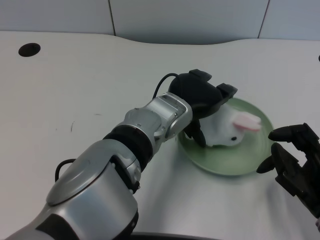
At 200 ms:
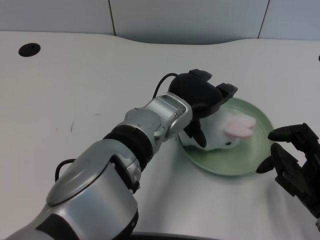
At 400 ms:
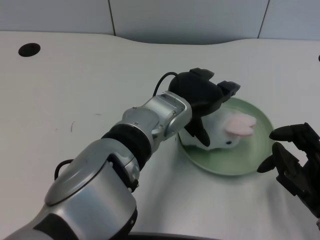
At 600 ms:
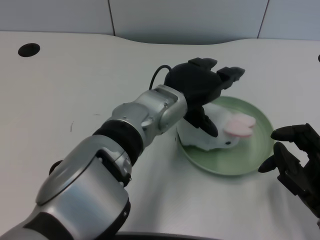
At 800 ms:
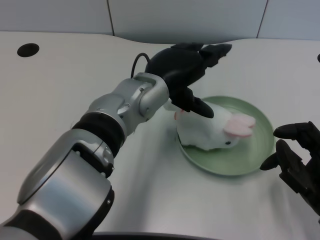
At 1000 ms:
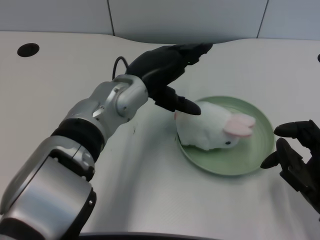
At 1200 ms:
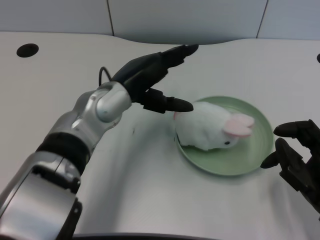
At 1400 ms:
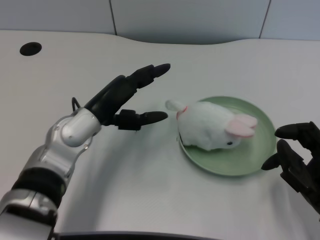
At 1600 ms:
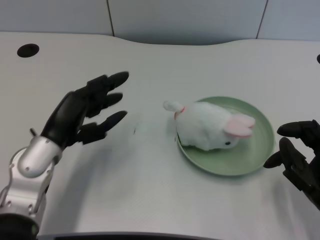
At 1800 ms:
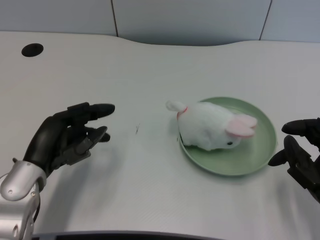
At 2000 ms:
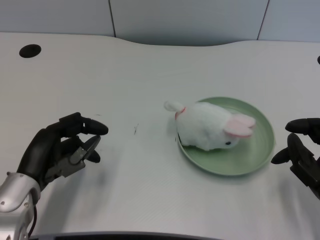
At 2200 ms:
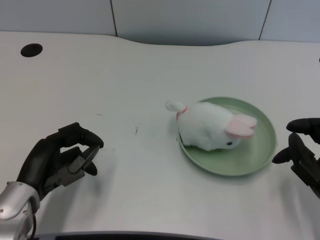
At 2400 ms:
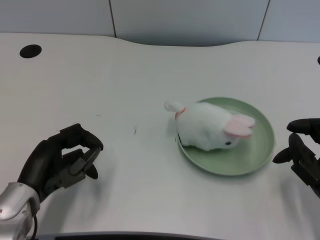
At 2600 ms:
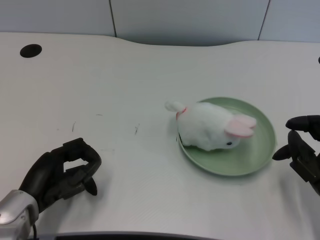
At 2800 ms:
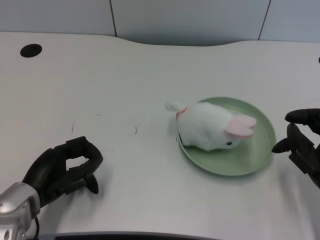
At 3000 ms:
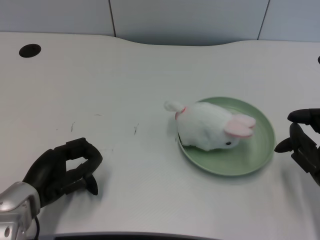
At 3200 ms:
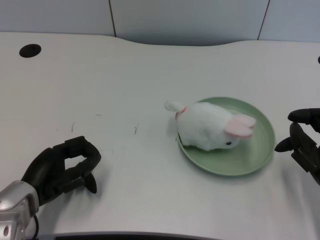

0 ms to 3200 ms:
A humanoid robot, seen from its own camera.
Task of the whole recording: pick up the rabbit doll from the table and place it on the plate.
0 ms to 1600 ms: The left hand heads to the left, covering approximately 20 cm.
1600 ms to 3200 ms: The left hand changes place by roughly 5 cm.

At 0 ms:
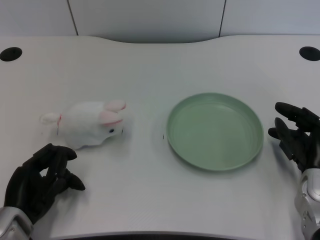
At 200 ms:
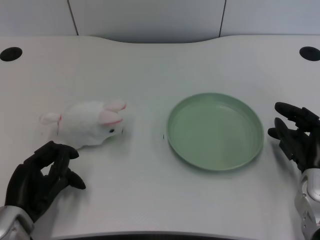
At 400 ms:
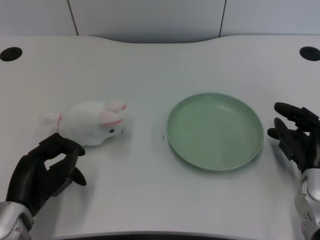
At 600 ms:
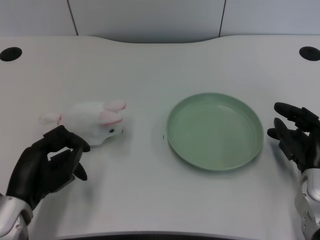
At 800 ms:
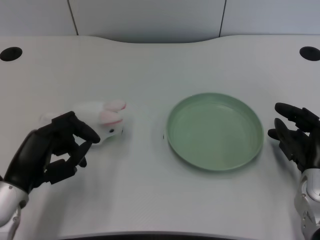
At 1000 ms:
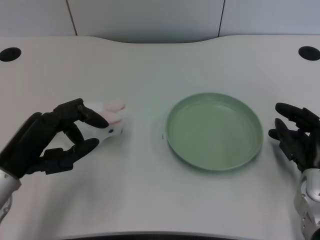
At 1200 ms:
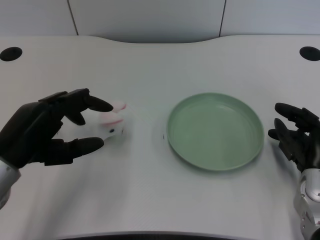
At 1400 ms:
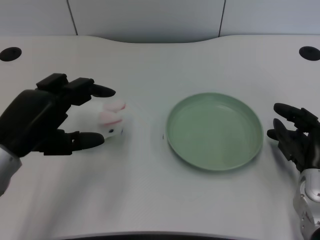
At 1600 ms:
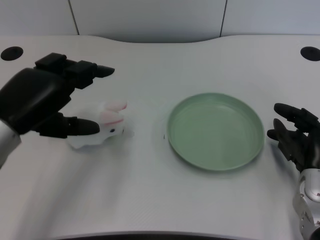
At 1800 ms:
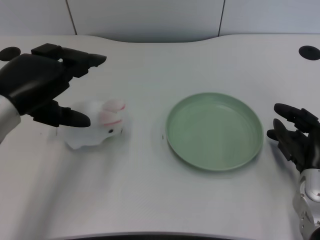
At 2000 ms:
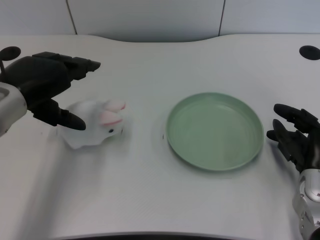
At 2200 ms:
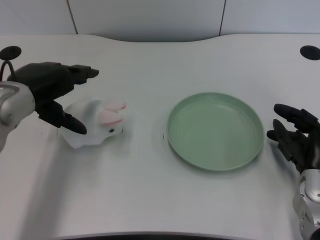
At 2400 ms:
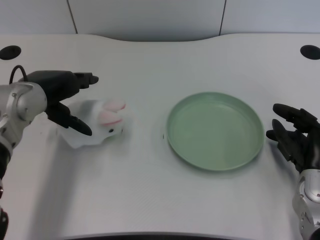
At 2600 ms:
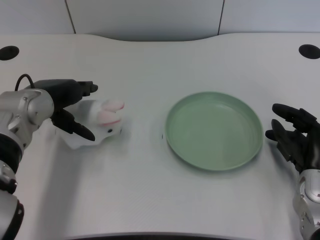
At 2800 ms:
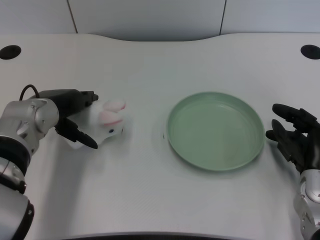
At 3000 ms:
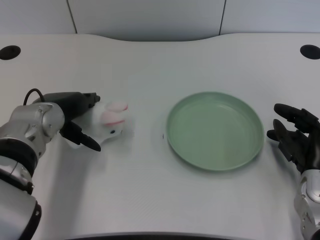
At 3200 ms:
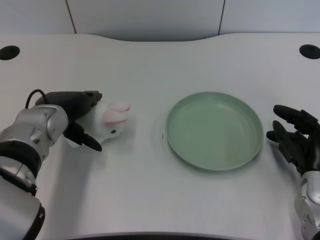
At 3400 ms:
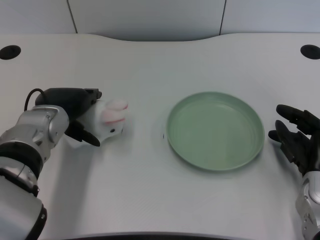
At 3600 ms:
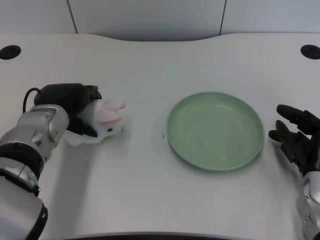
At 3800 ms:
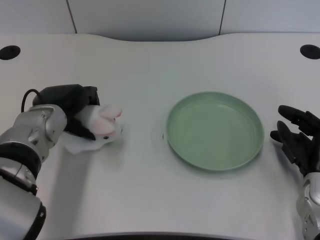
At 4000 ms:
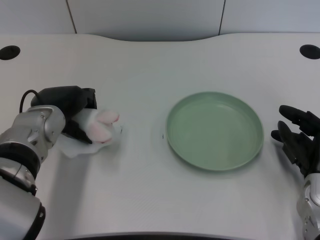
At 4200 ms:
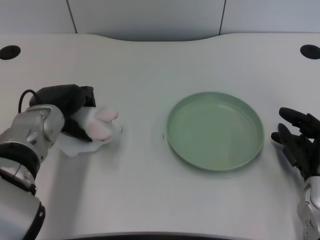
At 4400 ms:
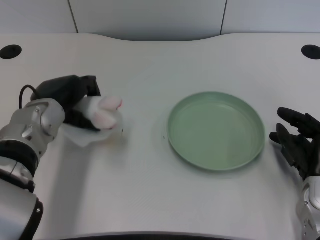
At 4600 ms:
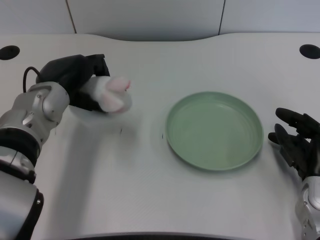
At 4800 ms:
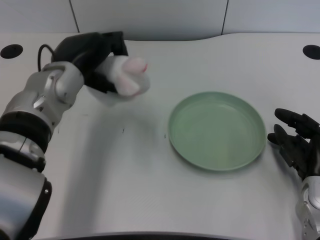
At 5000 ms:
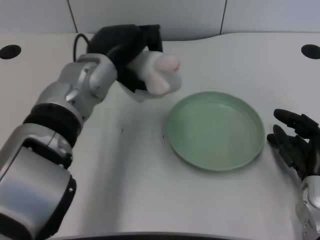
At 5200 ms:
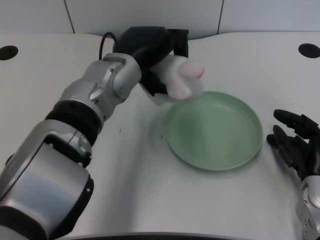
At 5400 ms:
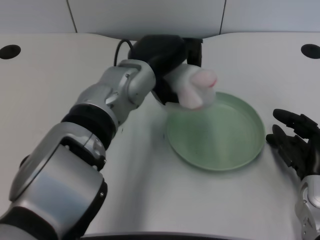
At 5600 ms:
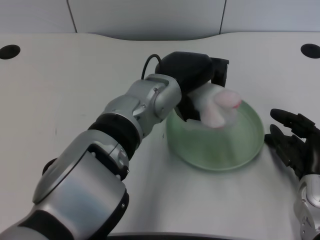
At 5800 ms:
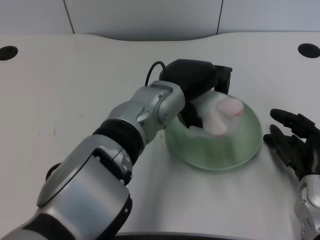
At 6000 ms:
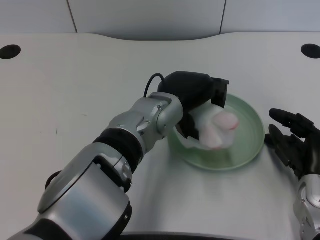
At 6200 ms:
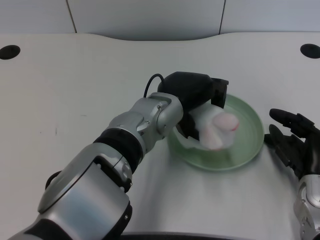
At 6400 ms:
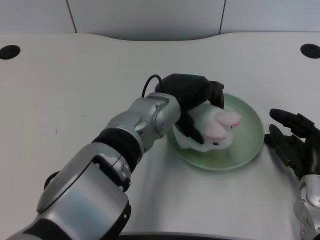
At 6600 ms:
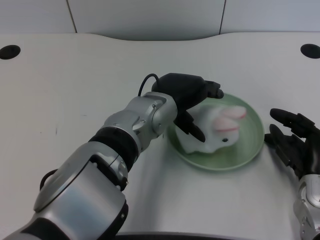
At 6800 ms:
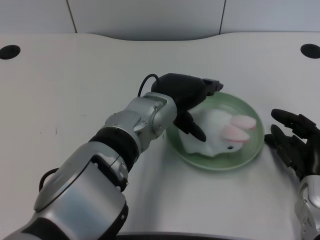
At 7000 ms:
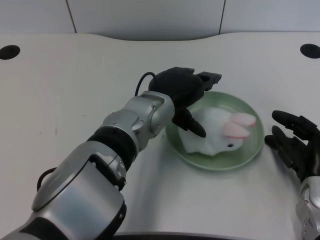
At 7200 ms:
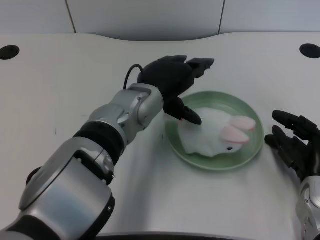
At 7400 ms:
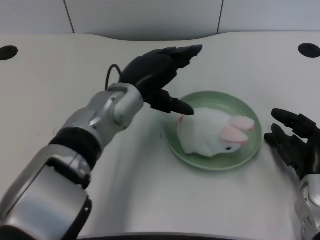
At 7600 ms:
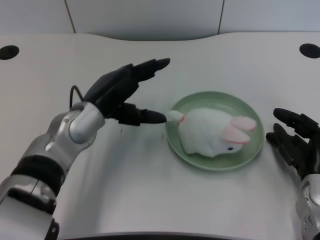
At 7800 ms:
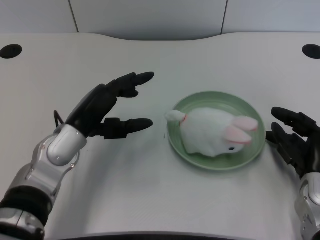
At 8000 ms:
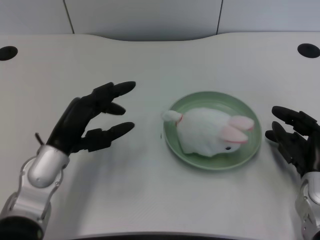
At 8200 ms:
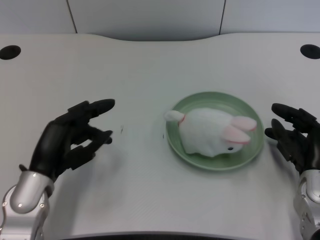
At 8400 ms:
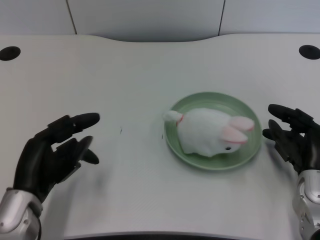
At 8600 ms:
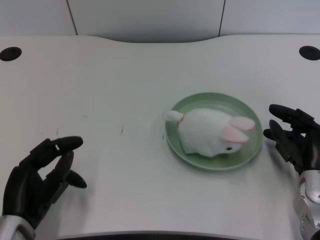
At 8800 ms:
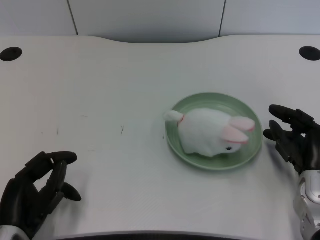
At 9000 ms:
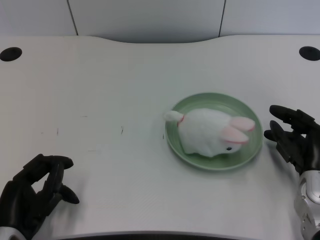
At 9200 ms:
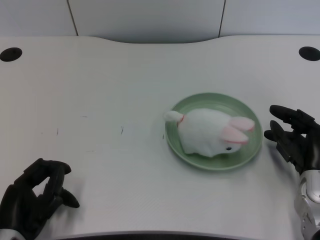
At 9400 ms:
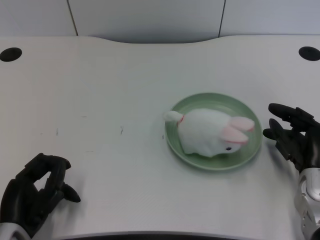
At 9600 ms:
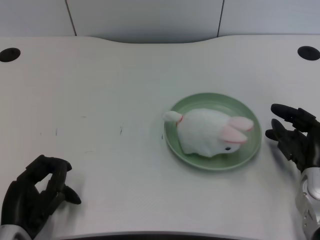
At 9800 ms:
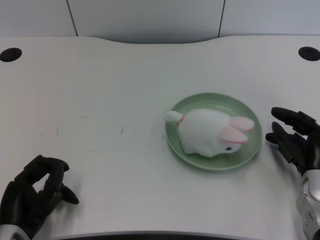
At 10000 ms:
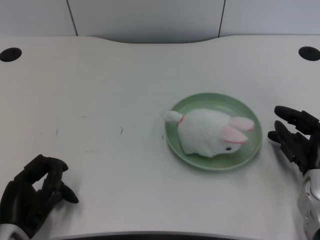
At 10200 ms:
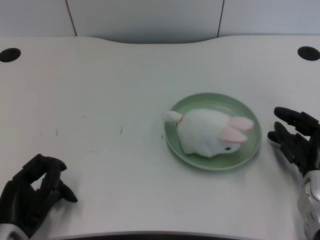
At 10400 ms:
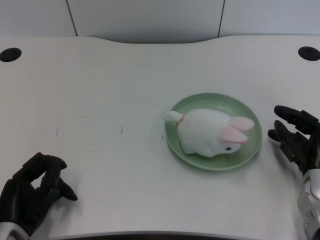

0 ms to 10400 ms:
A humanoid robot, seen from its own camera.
Task of the whole recording: pick up the rabbit doll from the table and place it on the plate.
Step, 0 ms to 4400 ms: Grasp the rabbit doll with the left gripper.
Step, 4600 ms to 6600 ms: Place the rabbit doll into the plate with the left gripper.
1400 ms to 3000 ms: The left hand moves forward and to the right, some 10 cm.
3000 ms to 4400 ms: The hands make only small movements.
4400 ms to 6000 ms: The left hand shifts roughly 15 cm to the right.
6000 ms to 7400 ms: The left hand travels to the left by some 5 cm.
7400 ms to 9000 ms: The left hand heads to the left, backward and downward, covering some 25 cm.
9000 ms to 10400 ms: The hands move only a little.
